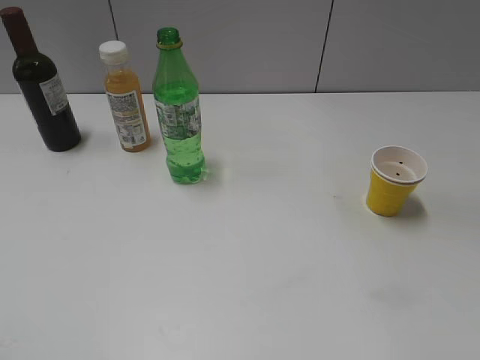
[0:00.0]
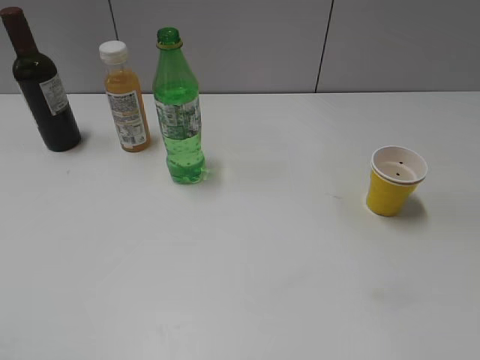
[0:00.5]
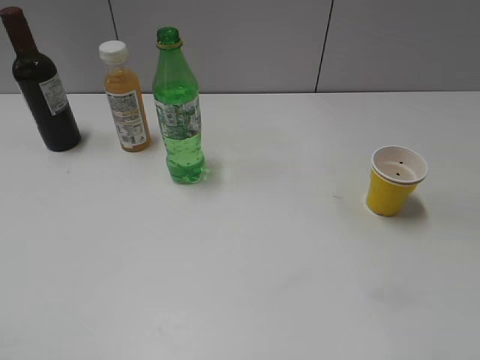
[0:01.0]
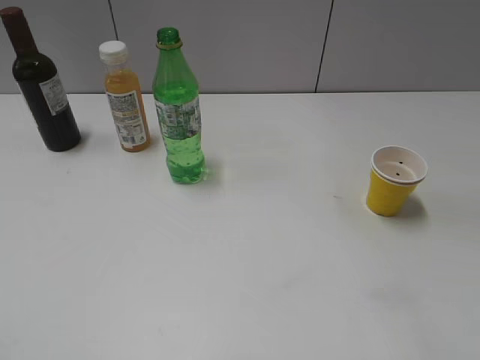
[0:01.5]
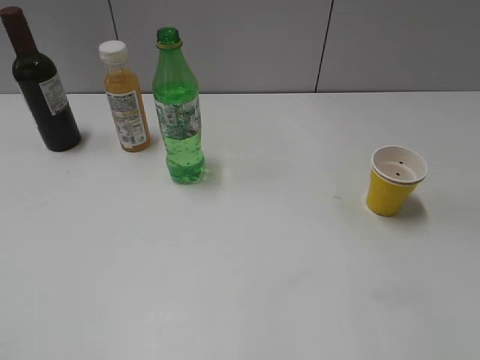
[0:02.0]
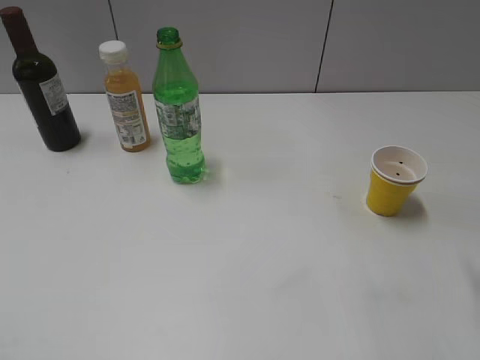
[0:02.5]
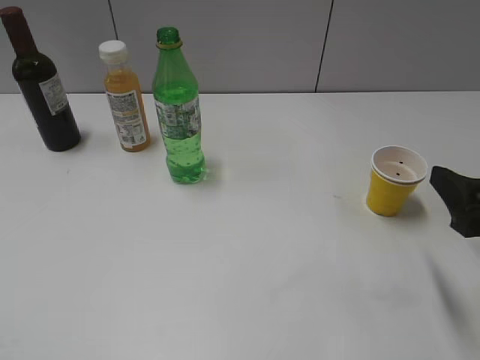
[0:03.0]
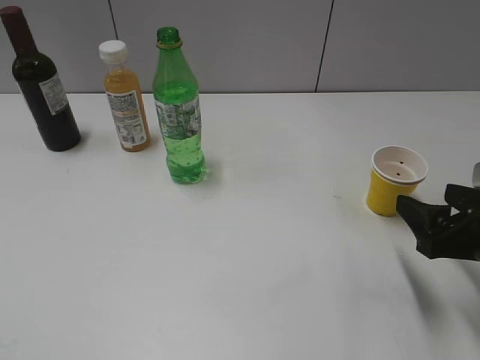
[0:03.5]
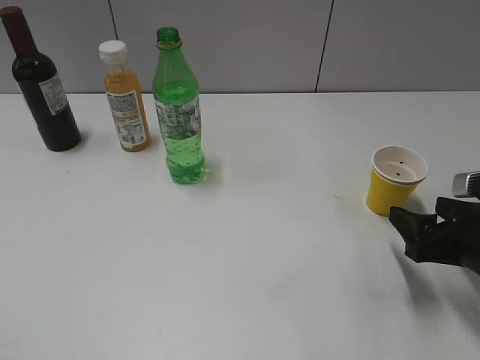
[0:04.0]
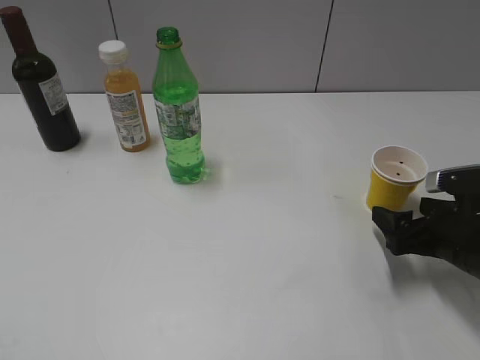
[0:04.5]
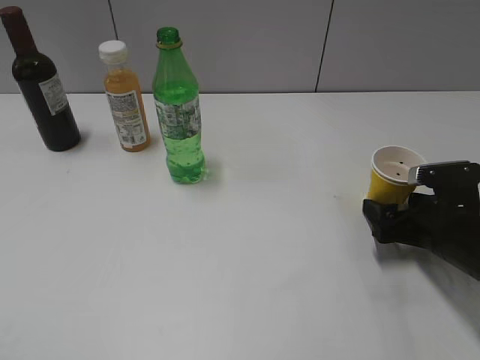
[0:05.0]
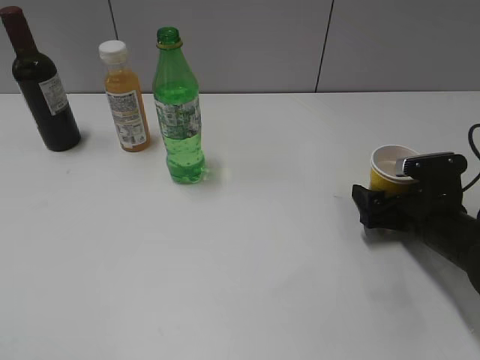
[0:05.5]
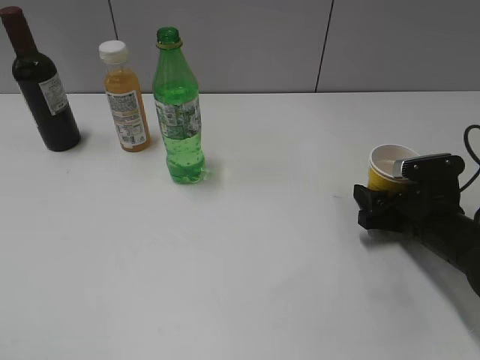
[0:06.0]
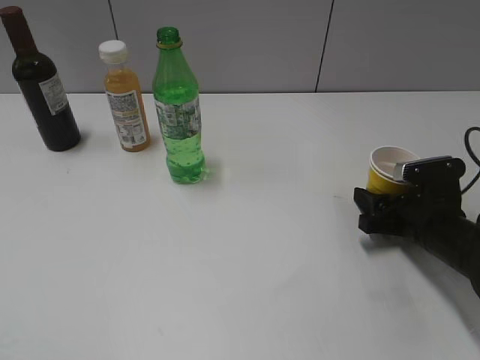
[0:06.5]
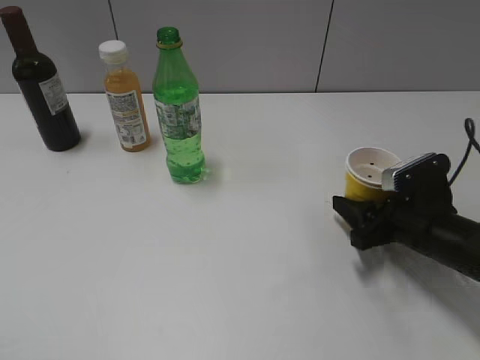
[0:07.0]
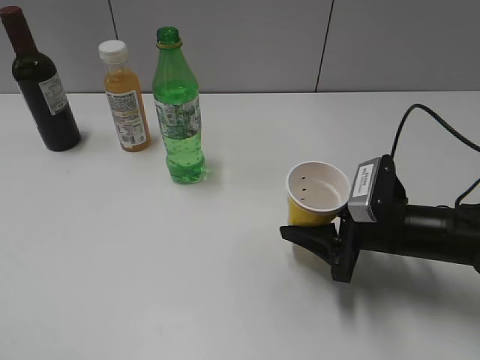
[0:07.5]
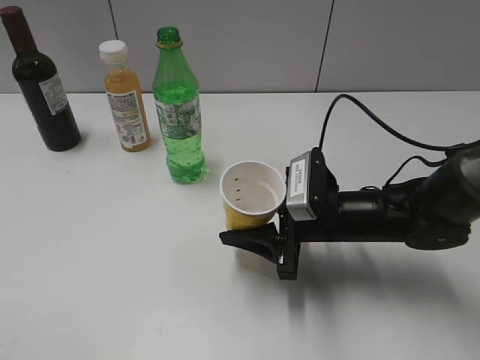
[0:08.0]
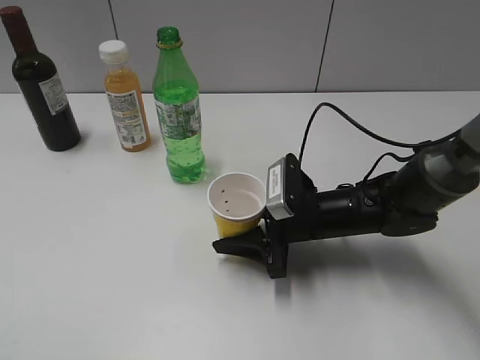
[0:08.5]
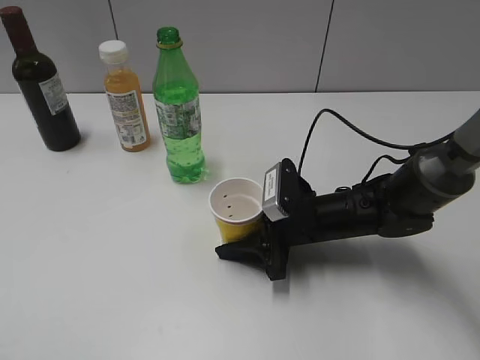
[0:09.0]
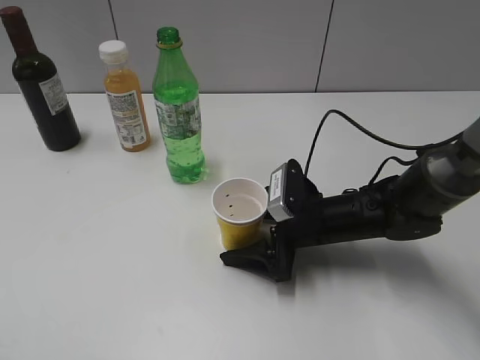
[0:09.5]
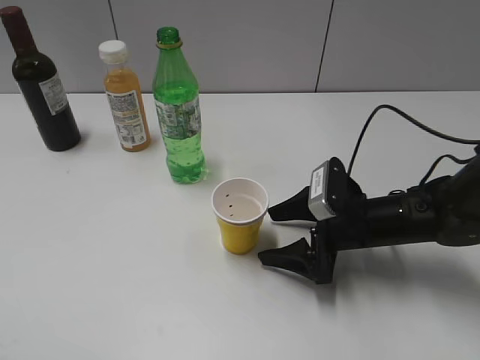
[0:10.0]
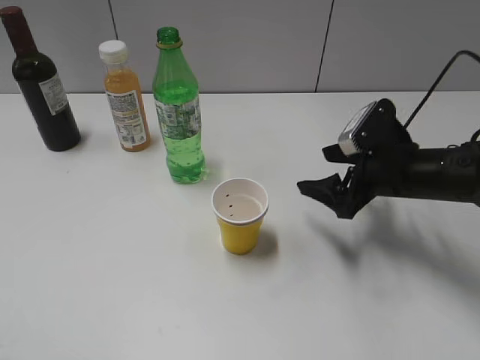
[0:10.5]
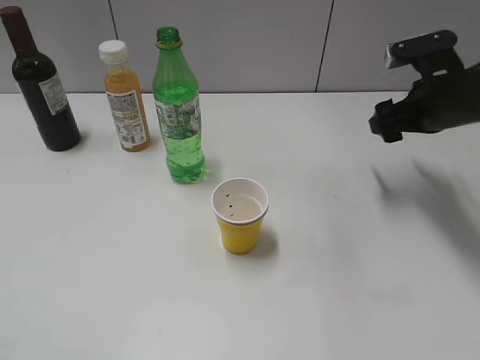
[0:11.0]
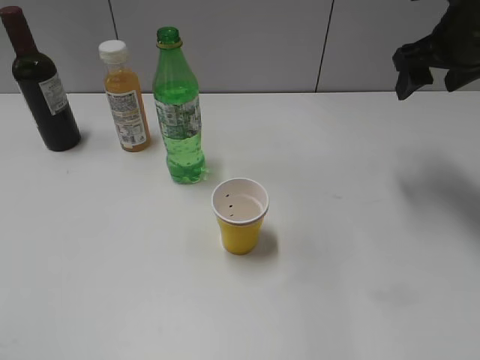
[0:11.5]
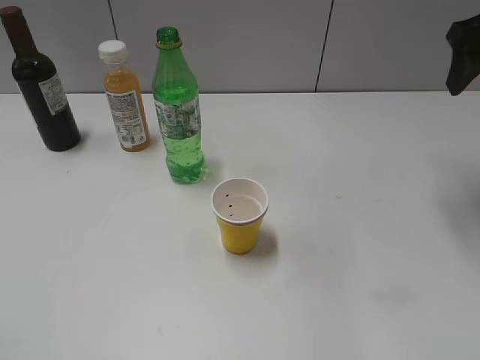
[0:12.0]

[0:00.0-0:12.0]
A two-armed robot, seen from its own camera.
Step, 0:01.0 to 0:06.0: Grasp the yellow paper cup with right gripper.
Step, 0:07.0 to 0:09.5: Place the yellow paper cup on the table with right gripper.
0:02.0 to 0:04.0: The right gripper heads downward and forward, covering about 20 cm.
0:04.0 to 0:06.0: The right gripper heads forward and downward, covering approximately 10 cm, and closes its fingers.
0:06.0 to 0:08.0: The right gripper shifts about 15 cm to the left.
0:08.0 to 0:10.0: The right gripper opens up.
0:10.0 to 0:12.0: The right gripper heads upward and to the right, covering approximately 30 cm.

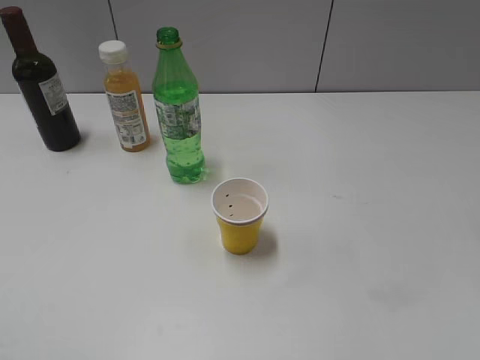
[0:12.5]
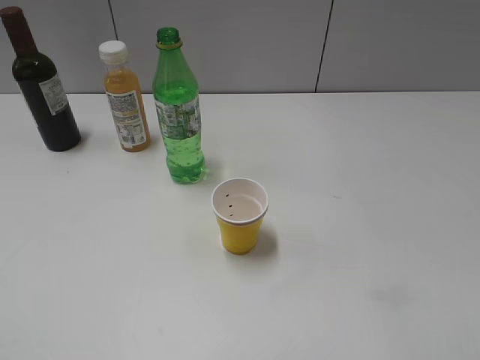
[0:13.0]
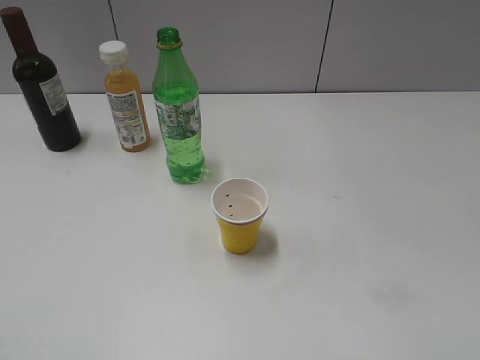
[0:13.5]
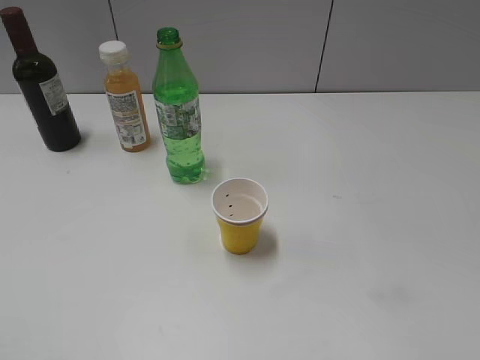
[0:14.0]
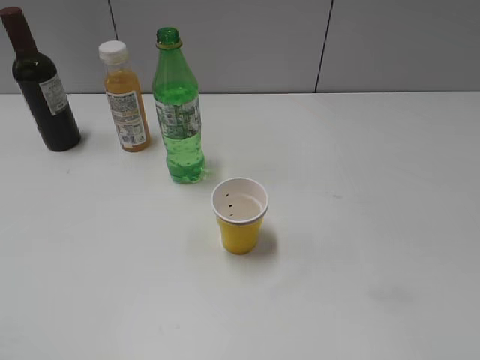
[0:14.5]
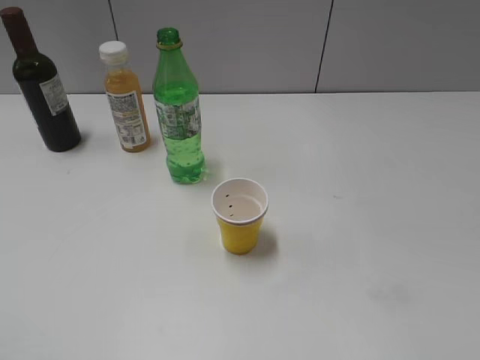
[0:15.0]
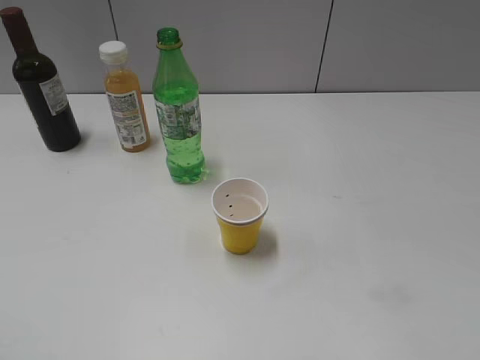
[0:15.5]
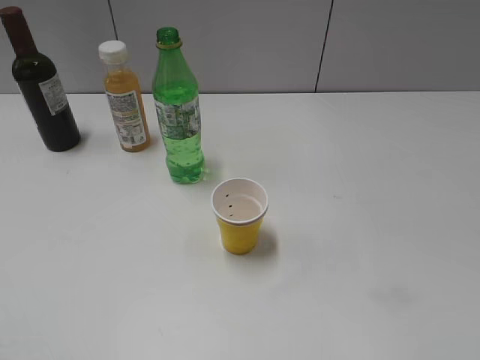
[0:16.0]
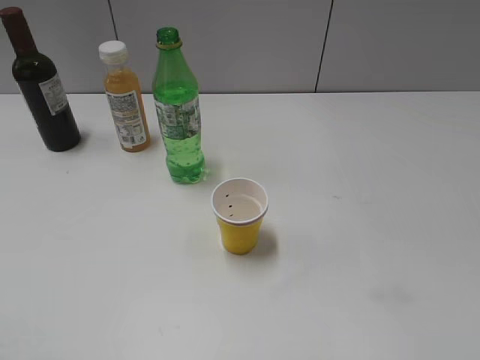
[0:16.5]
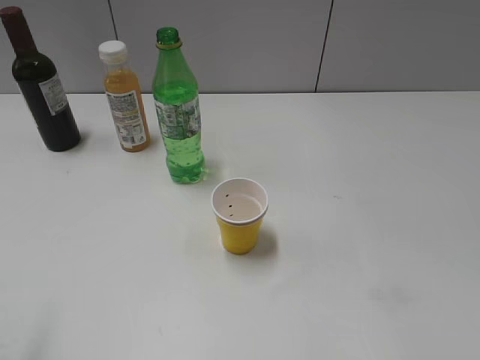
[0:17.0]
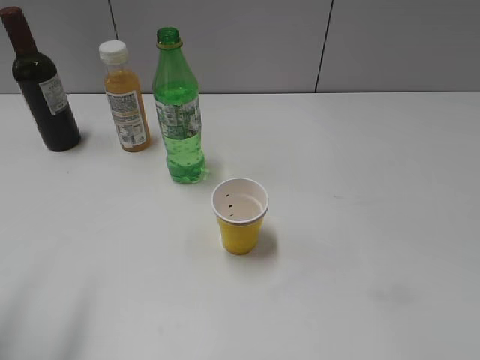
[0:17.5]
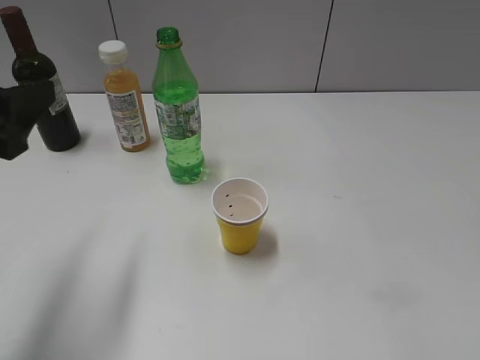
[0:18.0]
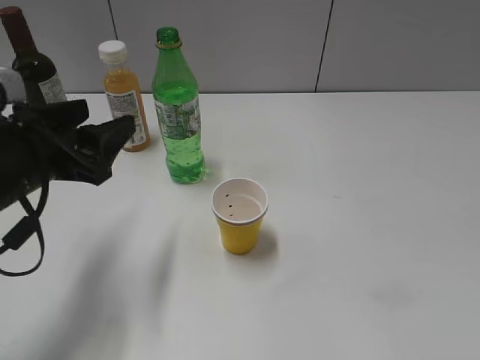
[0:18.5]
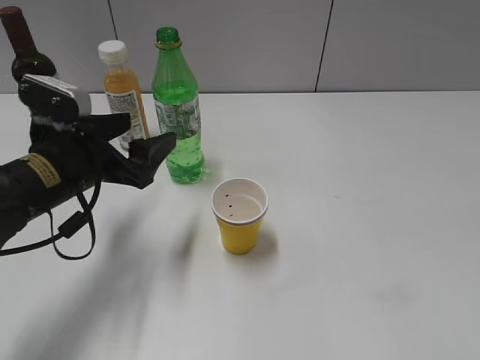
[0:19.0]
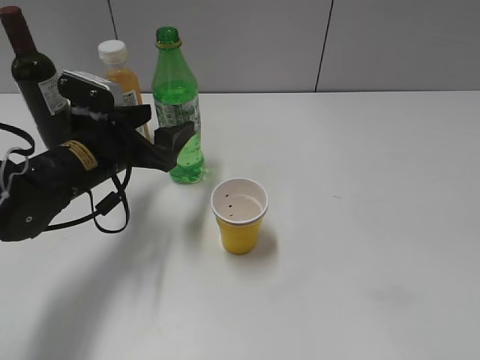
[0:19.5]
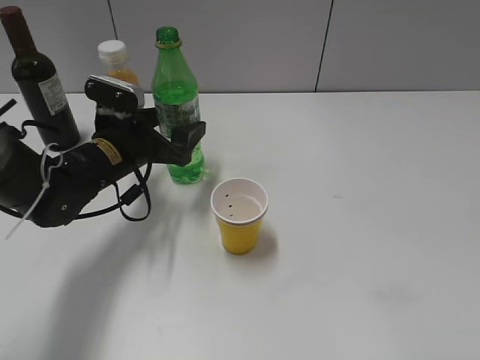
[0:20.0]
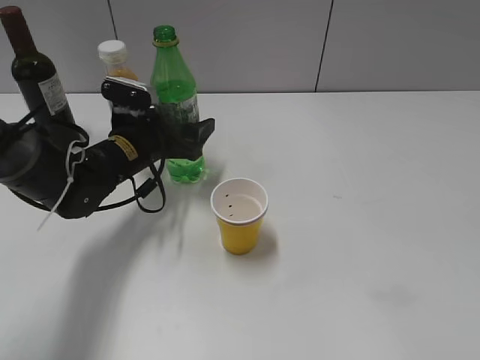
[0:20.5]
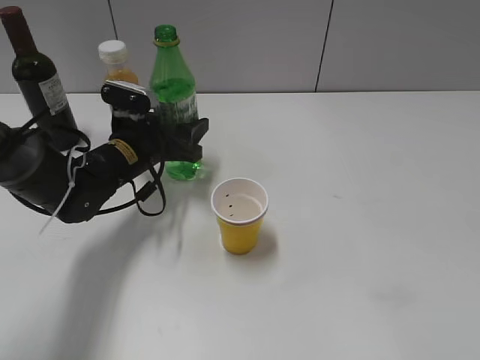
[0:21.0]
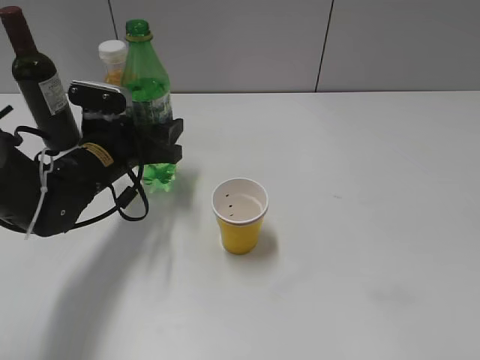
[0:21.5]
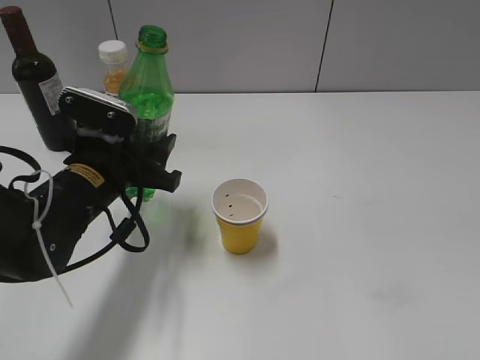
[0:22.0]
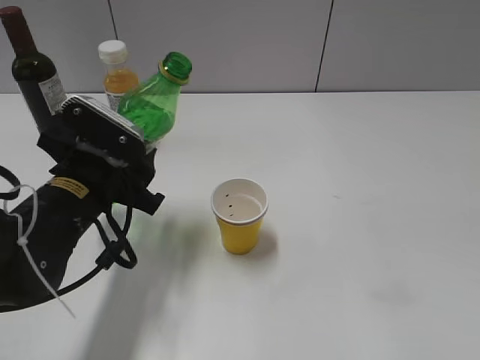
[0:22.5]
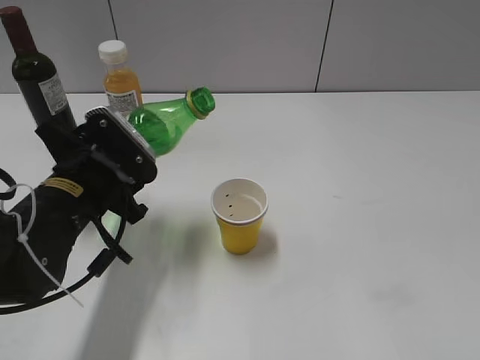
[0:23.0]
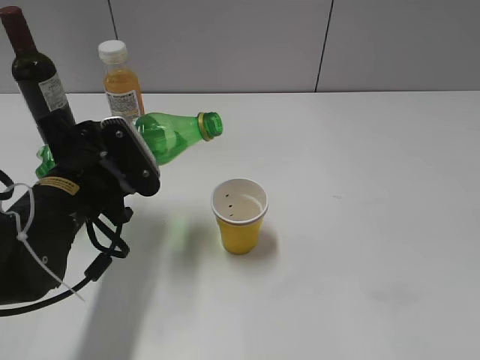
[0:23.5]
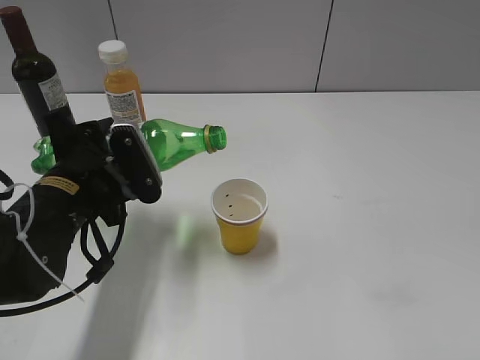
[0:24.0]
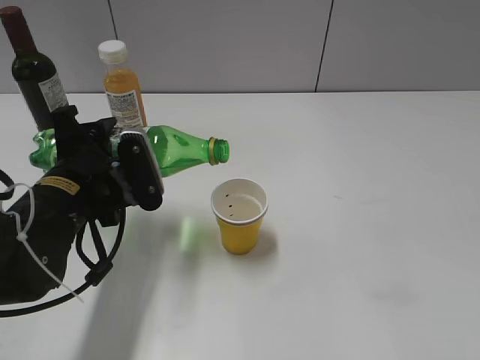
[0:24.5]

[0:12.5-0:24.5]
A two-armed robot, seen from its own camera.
Step, 0:12.5 to 0:21.0: Grasp the bottle with sprite with left gripper.
0:16.5 to 0:18.5: The left gripper moves forward and downward, roughly 25 cm.
0:18.5 to 0:20.5: The left gripper moves forward, downward and to the right, roughly 20 cm, and opens up.
0:20.5 to 0:22.5: The left gripper goes some 15 cm backward, and closes up.

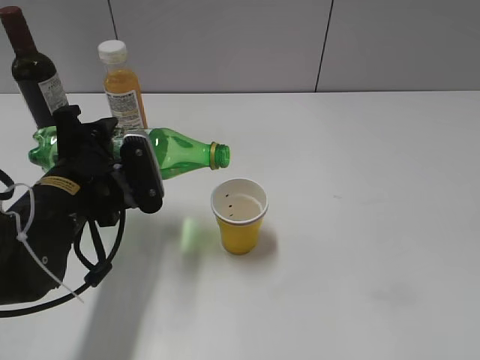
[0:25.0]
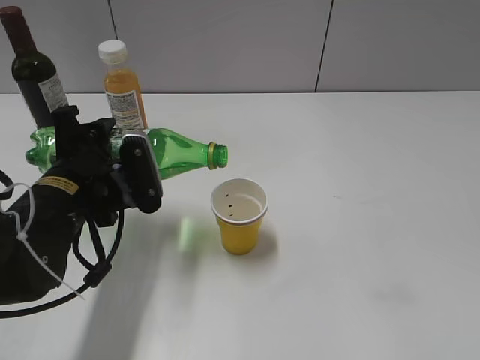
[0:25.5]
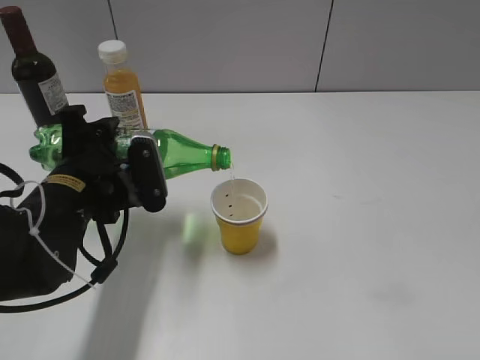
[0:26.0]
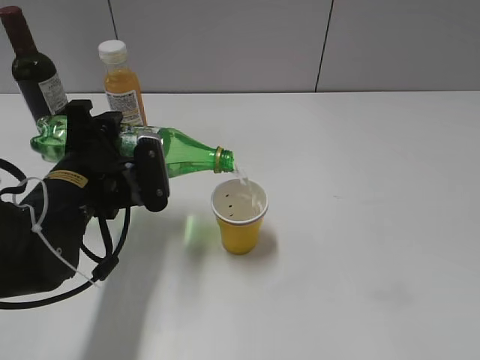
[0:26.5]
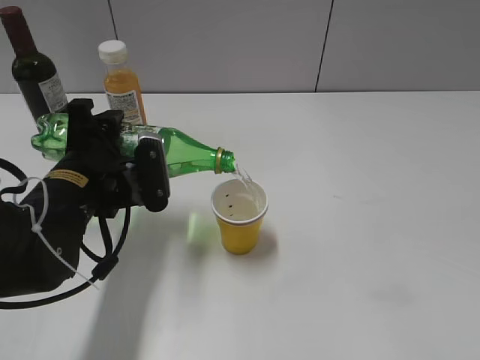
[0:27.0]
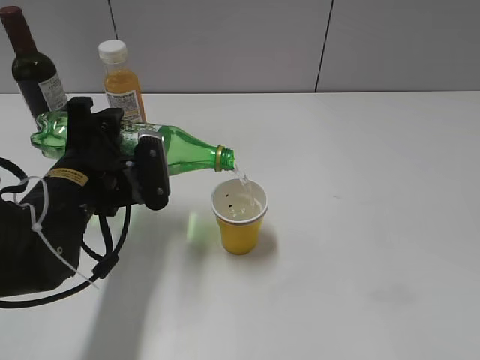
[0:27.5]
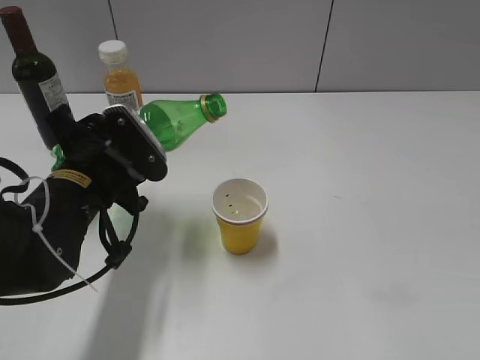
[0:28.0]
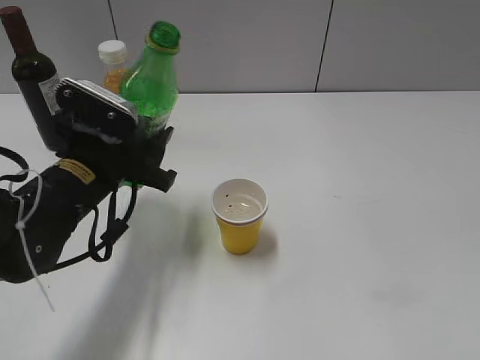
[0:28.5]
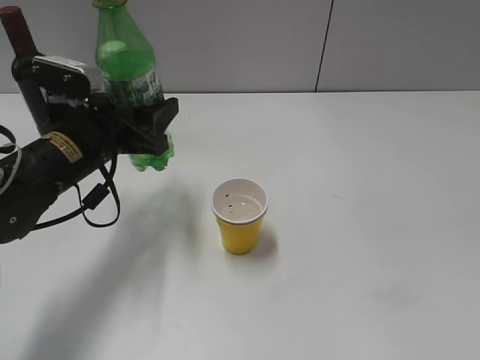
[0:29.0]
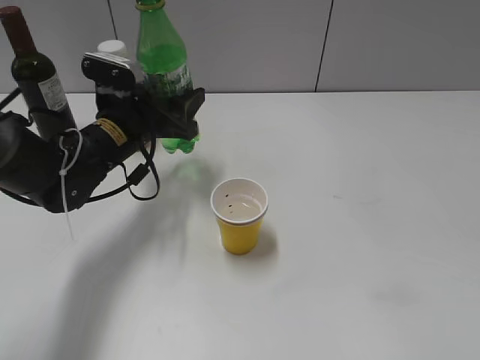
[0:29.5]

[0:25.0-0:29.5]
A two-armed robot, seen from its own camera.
Step, 0:25.0 to 0:28.0: Pour the sprite from bottle to cup with left gripper.
0:25.0 to 0:27.0: There are only small adjustments of the grippers.
0:27.0 to 0:29.5: The left gripper is displaced forward by some 10 cm.
